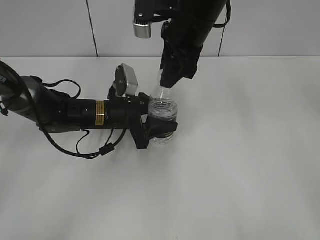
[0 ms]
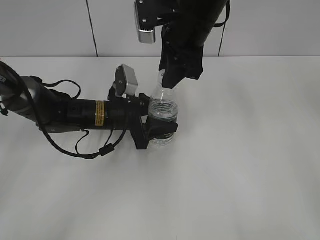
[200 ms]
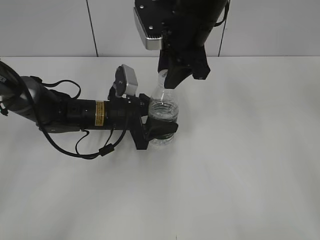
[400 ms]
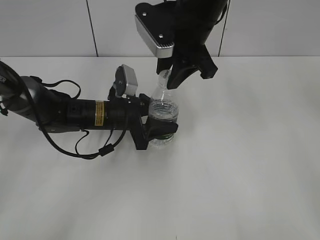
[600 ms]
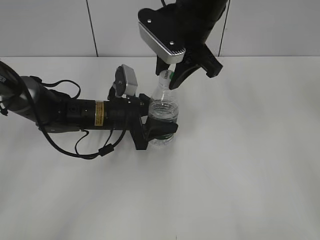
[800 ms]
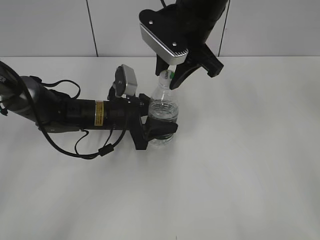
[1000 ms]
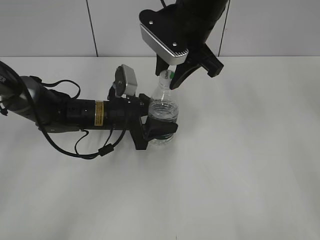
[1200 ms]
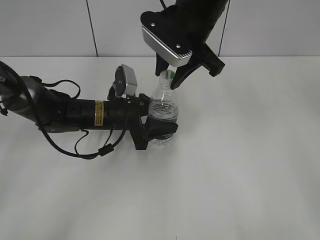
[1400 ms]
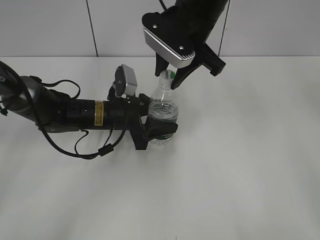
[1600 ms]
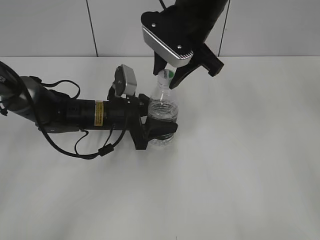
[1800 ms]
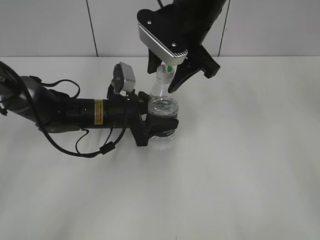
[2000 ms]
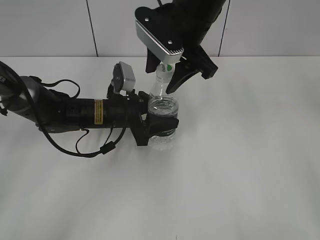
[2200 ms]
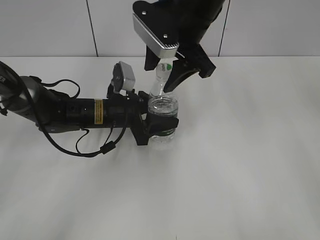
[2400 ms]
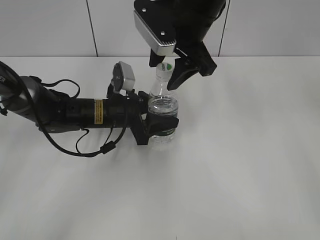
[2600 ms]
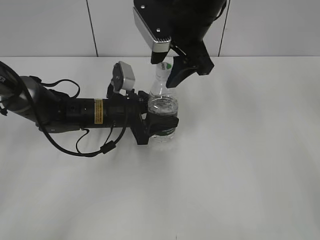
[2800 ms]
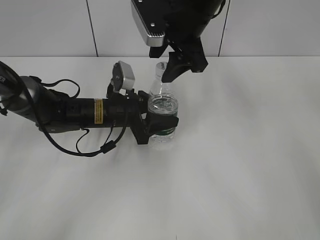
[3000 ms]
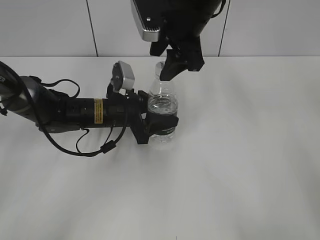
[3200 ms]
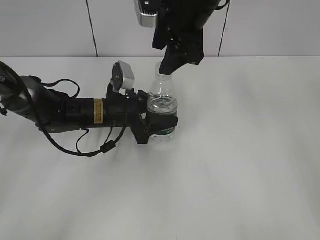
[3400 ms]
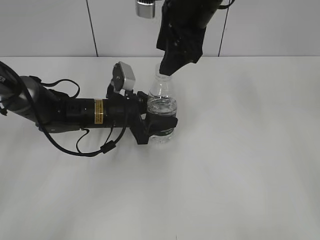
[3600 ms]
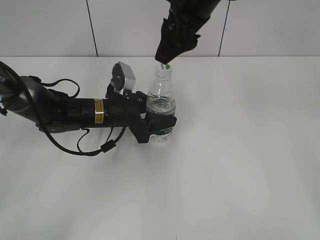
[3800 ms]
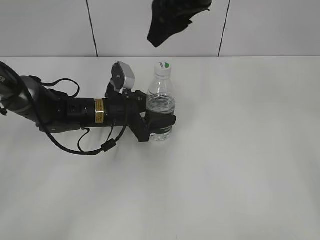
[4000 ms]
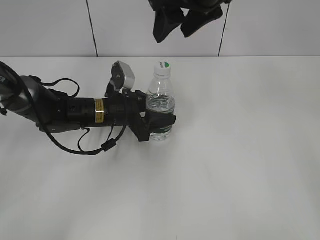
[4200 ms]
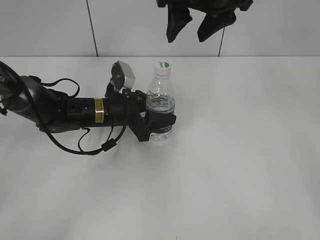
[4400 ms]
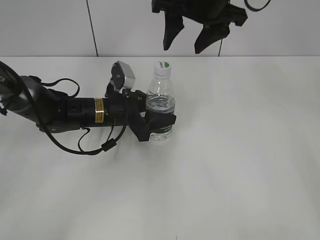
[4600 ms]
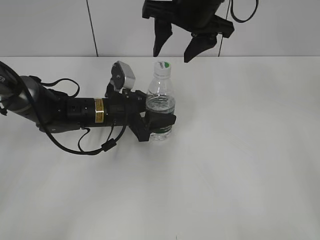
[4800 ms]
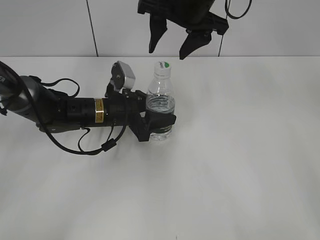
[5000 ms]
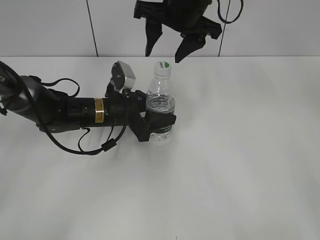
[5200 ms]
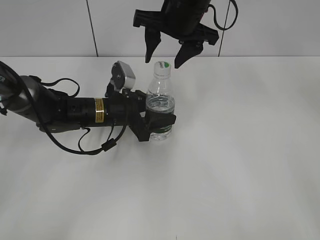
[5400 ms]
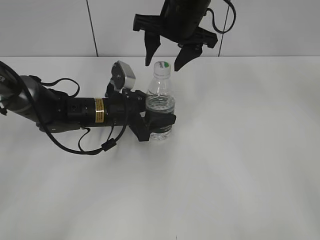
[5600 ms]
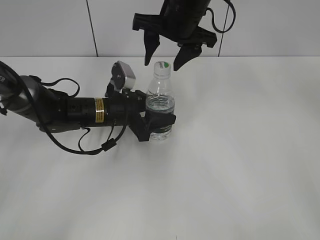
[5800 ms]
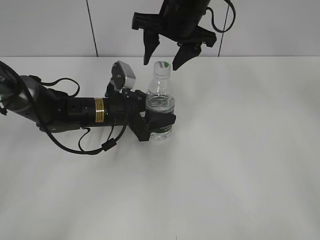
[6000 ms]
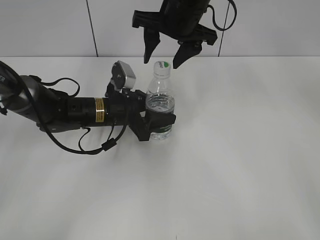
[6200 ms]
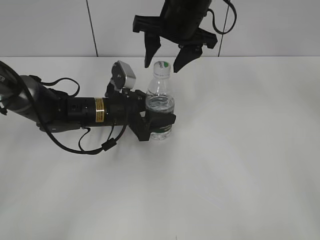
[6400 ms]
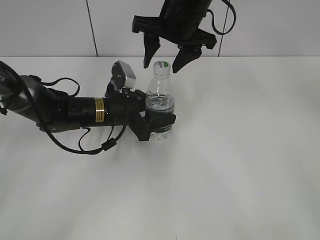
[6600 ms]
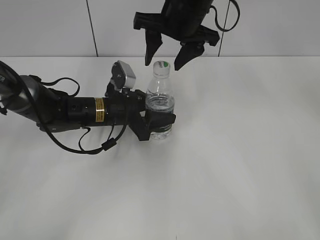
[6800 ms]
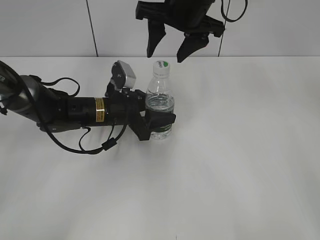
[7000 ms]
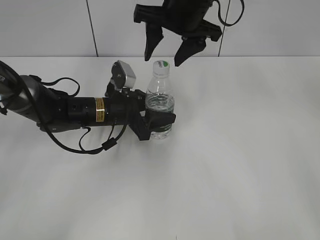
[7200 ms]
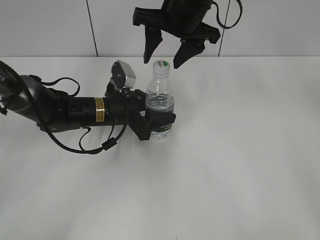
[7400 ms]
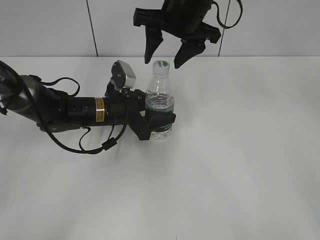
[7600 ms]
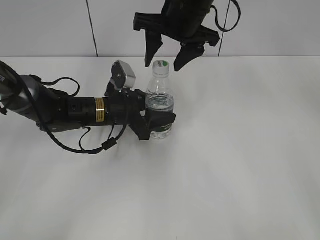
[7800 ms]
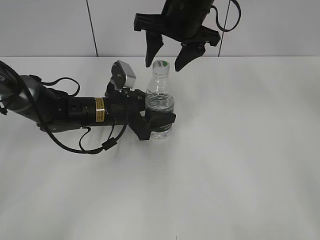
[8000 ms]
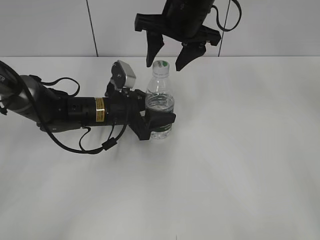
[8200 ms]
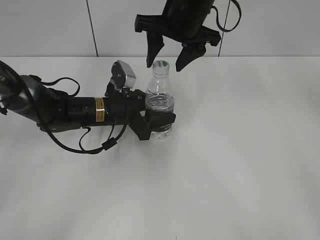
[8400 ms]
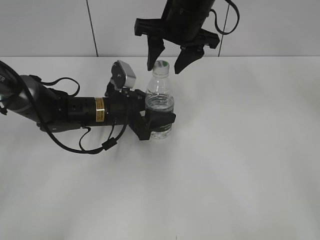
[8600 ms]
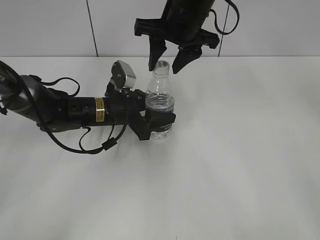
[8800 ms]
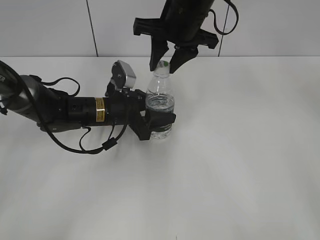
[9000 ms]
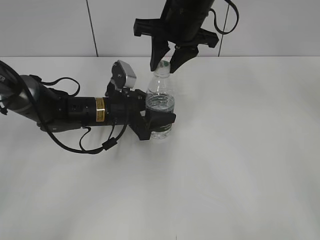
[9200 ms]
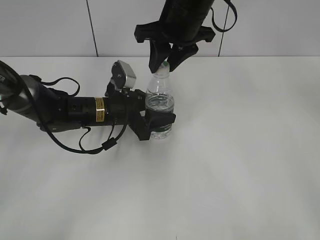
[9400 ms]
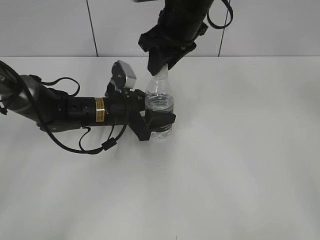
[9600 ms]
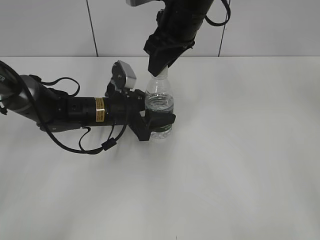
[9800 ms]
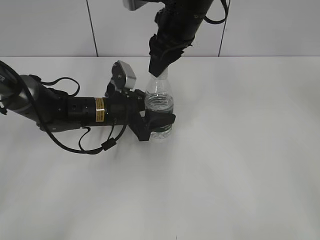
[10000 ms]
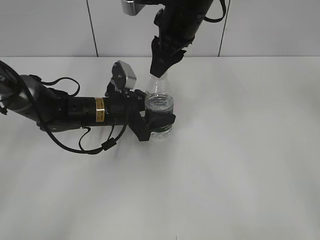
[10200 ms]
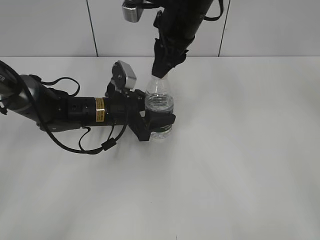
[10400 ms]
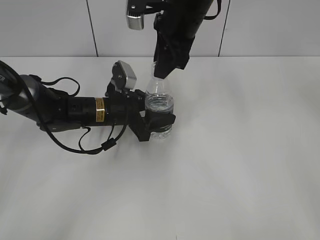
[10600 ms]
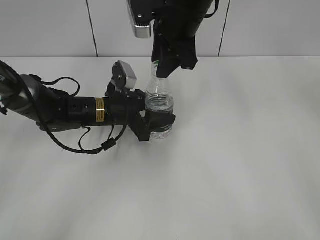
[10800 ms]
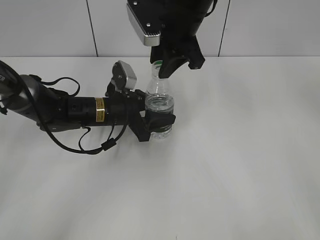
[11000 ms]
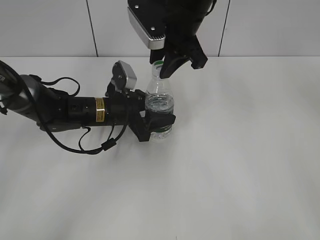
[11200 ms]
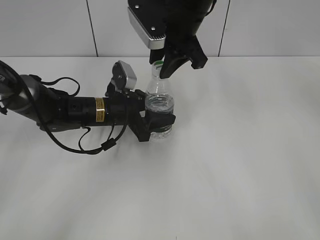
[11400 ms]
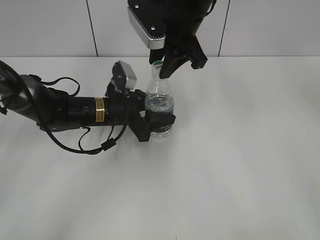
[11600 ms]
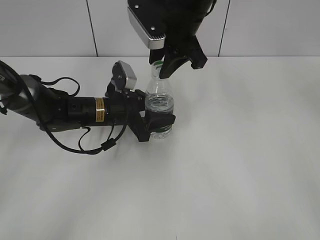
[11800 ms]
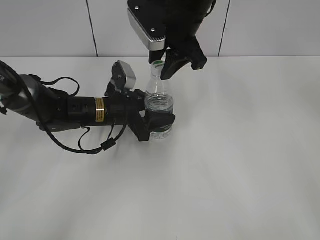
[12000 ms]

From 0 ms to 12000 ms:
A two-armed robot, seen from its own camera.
From 1600 ms to 3000 ms: The right gripper opens its fingers.
From 3000 ms to 4400 ms: The right gripper travels upward by roughly 5 cm.
From 4400 ms to 6000 ms: The right gripper heads downward, covering roughly 5 cm.
From 6000 ms to 7600 ms: The grippers move only a little.
From 7600 ms to 9000 ms: The right gripper closes its fingers.

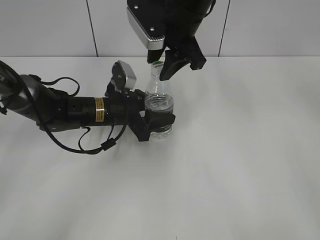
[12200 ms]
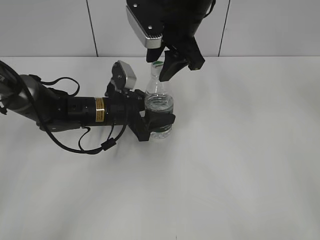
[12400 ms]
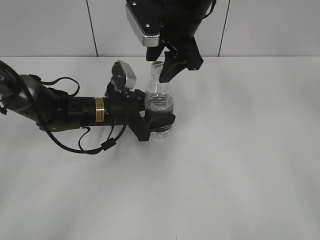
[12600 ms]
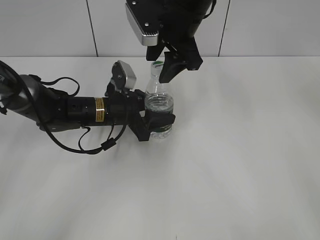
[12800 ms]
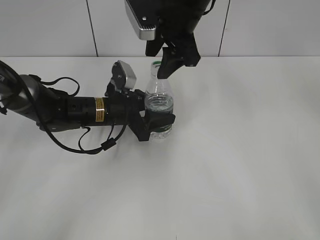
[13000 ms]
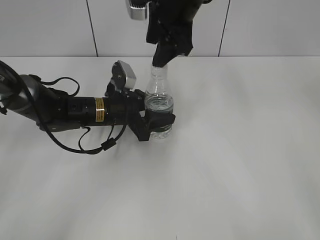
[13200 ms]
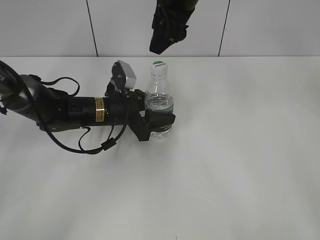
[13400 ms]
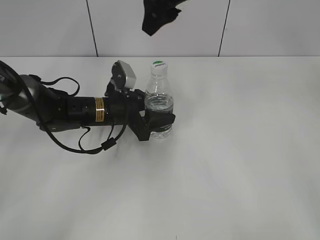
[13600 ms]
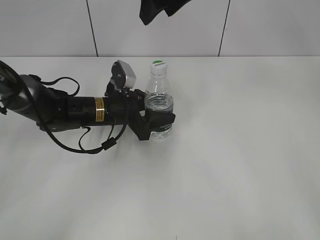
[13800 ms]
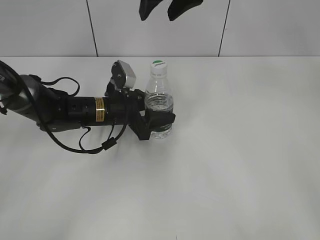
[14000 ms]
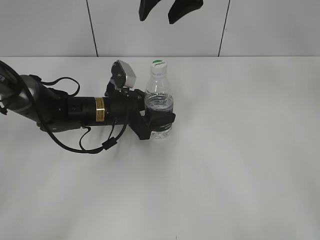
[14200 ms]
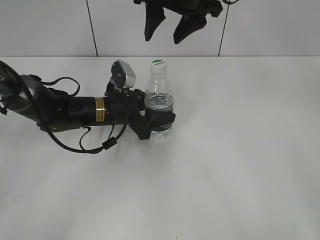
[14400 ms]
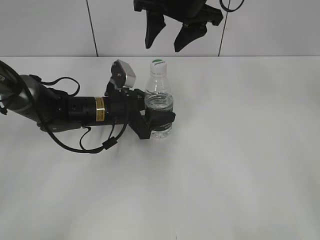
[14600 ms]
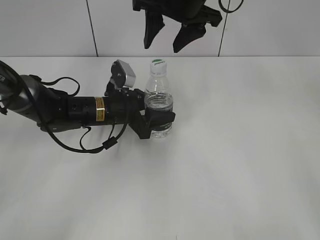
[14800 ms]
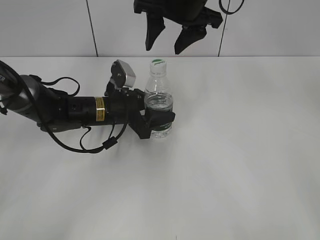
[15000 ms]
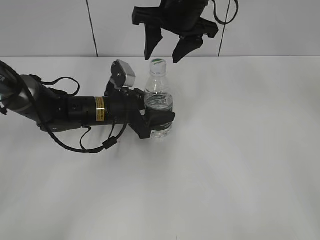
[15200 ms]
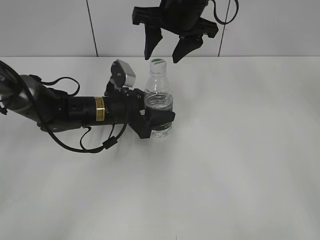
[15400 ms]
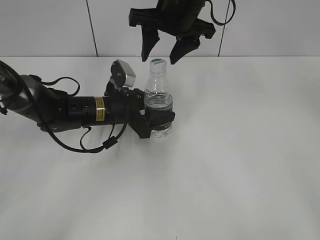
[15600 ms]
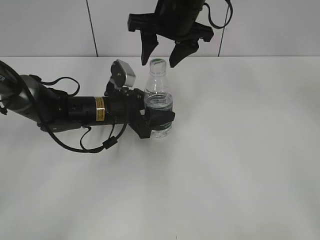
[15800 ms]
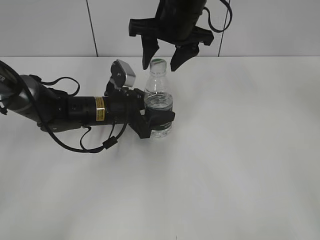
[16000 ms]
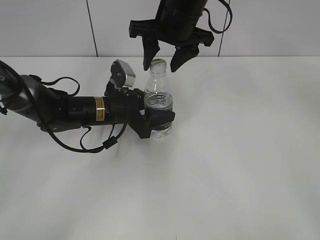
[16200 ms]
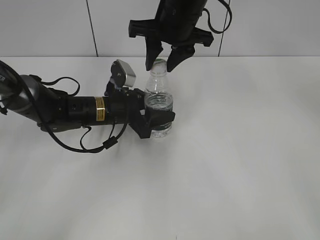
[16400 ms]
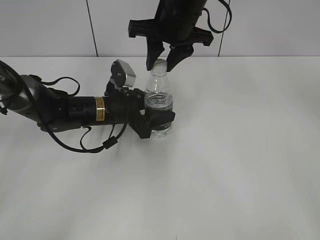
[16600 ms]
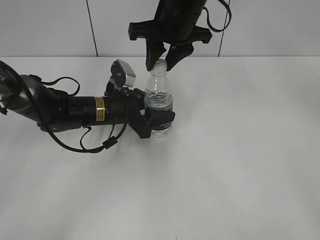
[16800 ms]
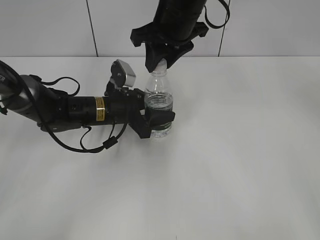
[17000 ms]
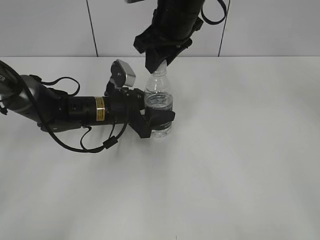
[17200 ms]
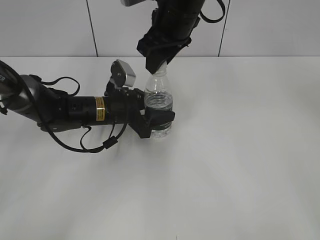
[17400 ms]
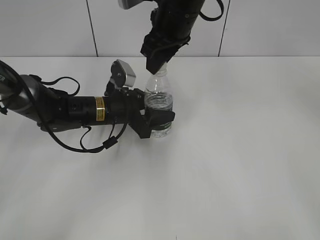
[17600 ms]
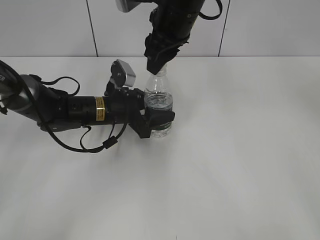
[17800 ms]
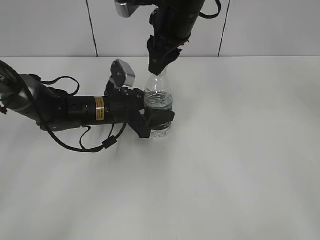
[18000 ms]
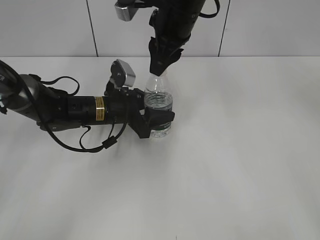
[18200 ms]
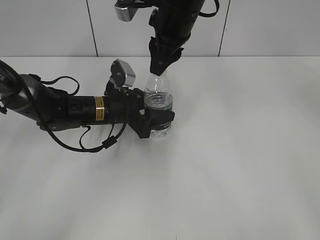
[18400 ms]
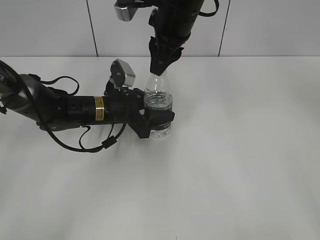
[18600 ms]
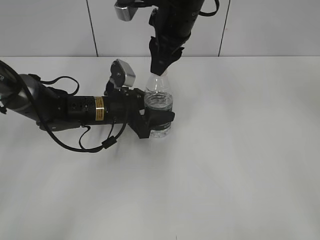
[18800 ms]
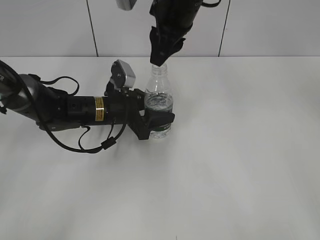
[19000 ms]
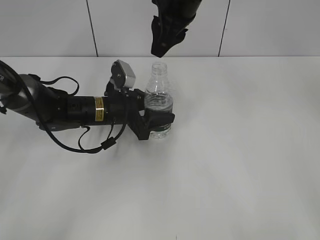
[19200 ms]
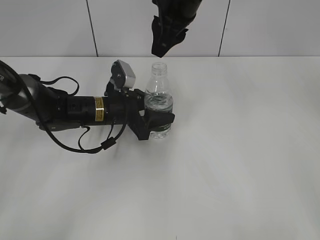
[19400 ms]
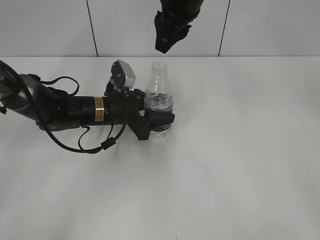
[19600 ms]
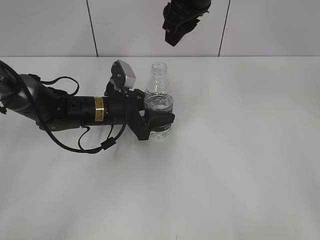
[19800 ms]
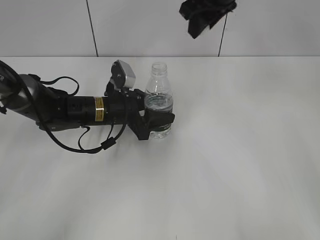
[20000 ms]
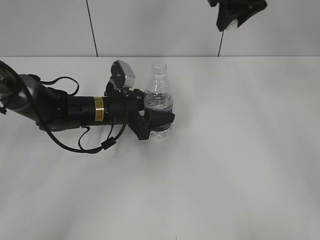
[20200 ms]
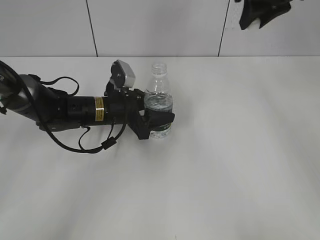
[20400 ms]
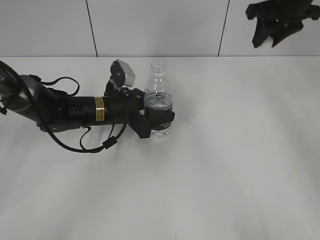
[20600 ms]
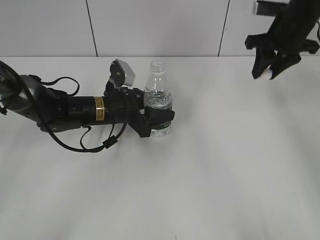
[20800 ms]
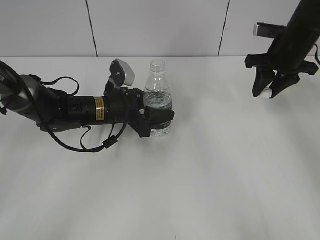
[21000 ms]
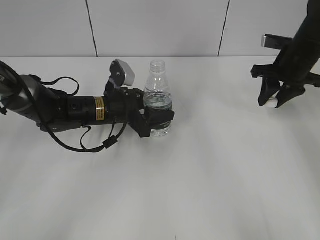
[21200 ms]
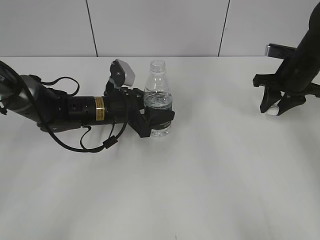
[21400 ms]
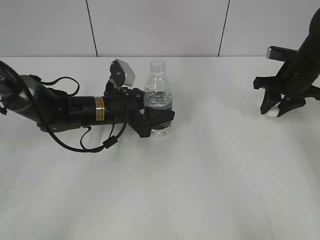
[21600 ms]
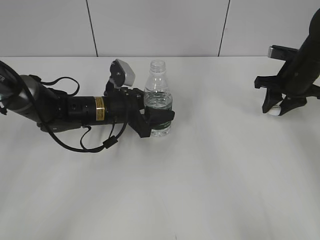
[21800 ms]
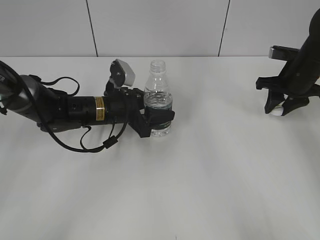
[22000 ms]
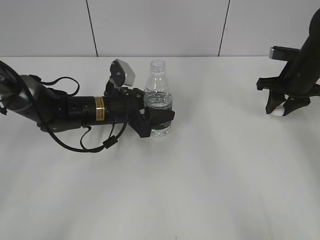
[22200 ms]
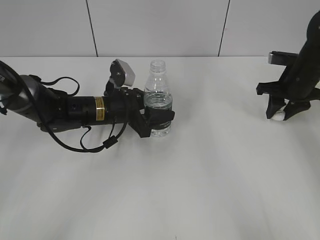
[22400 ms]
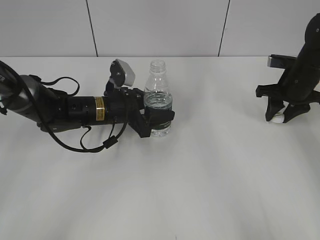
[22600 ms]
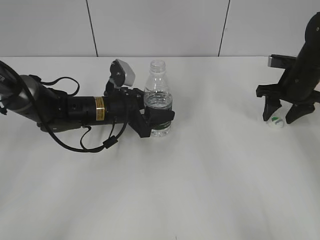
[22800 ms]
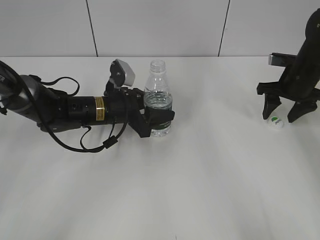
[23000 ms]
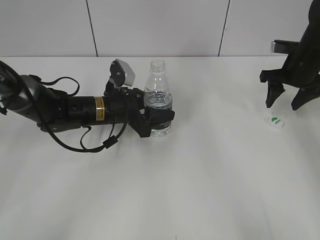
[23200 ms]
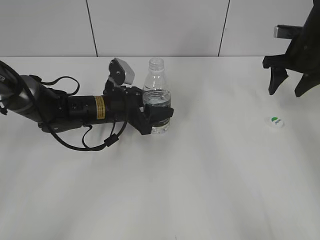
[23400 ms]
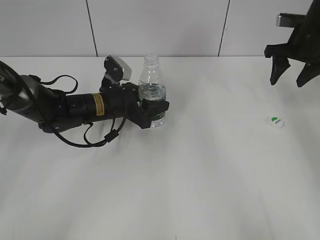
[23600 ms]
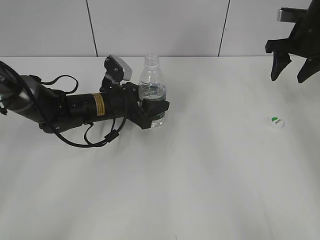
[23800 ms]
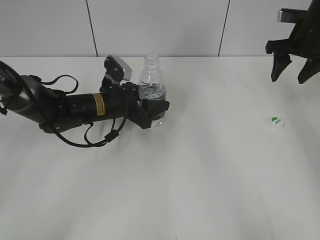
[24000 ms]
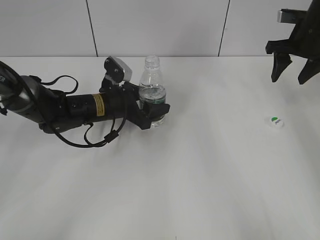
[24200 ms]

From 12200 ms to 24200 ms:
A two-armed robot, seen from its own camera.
Step, from 12200 ms to 19200 ms: Unscrew the bottle cap with the right gripper while holding the bottle with the left gripper.
Step, from 19400 ms to 23000 ms: Place the bottle cap on the table with the right gripper.
From 12200 ms to 13800 ms: The right gripper travels upward by approximately 5 cm, and opens its fingers.
From 13800 ms to 15200 ms: The right gripper goes approximately 5 cm downward.
From 15200 ms to 16600 ms: The right gripper closes its fingers.
From 18200 ms to 19800 ms: The right gripper moves some 5 cm.
From 19800 ms to 21200 ms: The right gripper travels to the right and downward by about 25 cm.
From 21200 ms to 22600 ms: The right gripper shifts by some 5 cm.
From 22600 ms to 24200 ms: The right gripper travels upward by roughly 10 cm, and opens its fingers.
